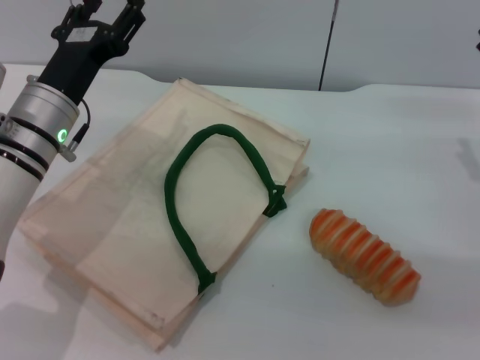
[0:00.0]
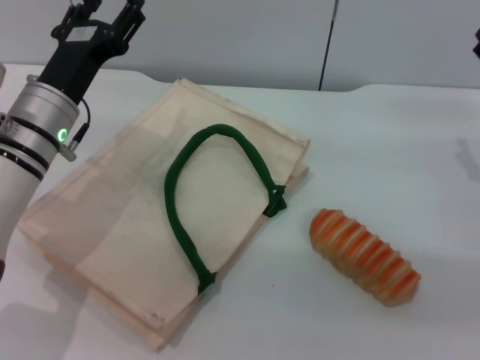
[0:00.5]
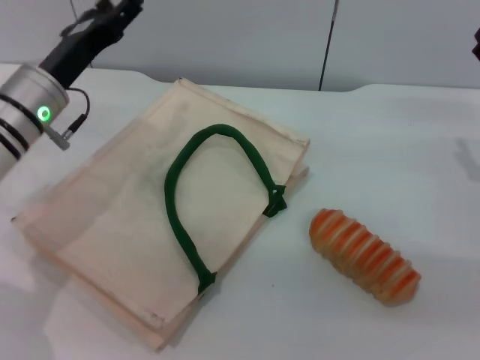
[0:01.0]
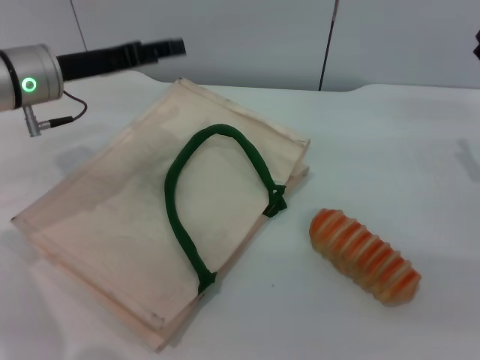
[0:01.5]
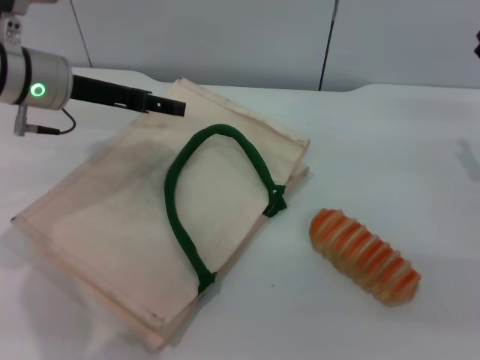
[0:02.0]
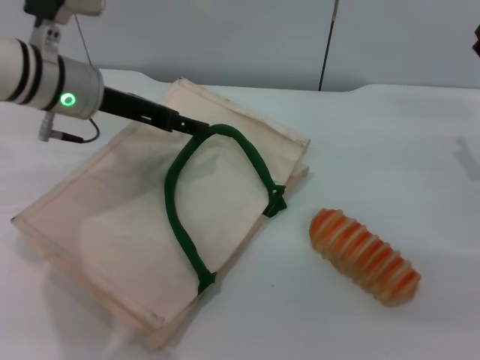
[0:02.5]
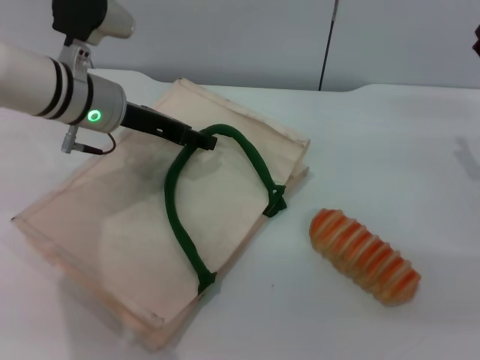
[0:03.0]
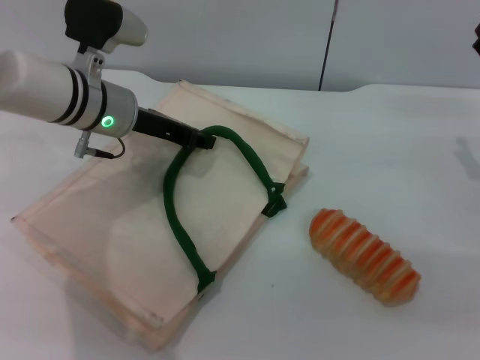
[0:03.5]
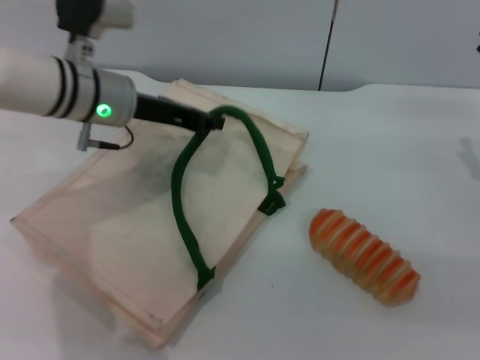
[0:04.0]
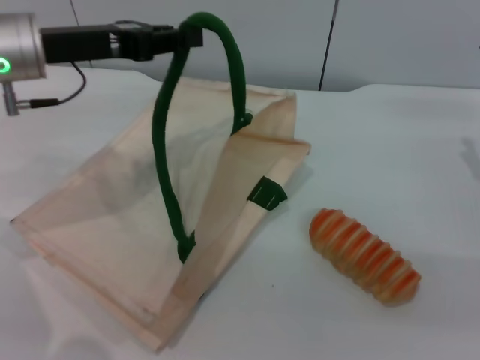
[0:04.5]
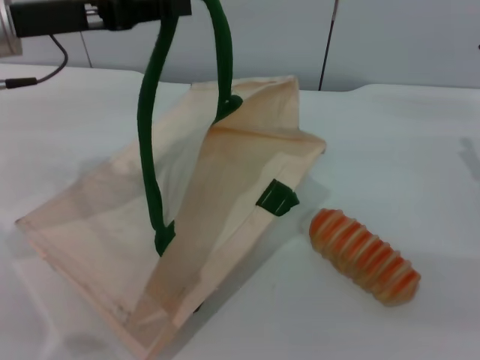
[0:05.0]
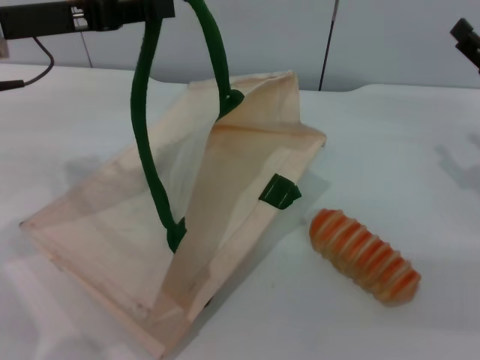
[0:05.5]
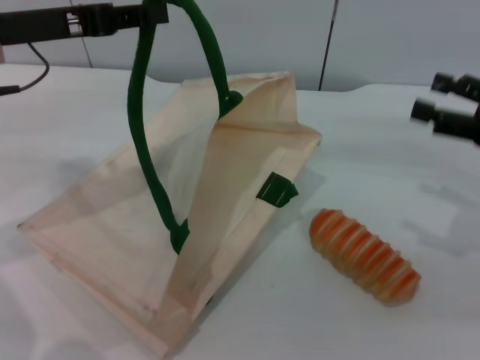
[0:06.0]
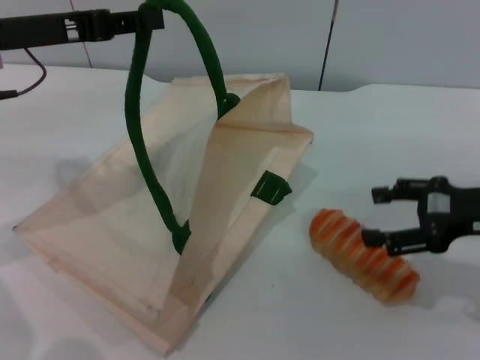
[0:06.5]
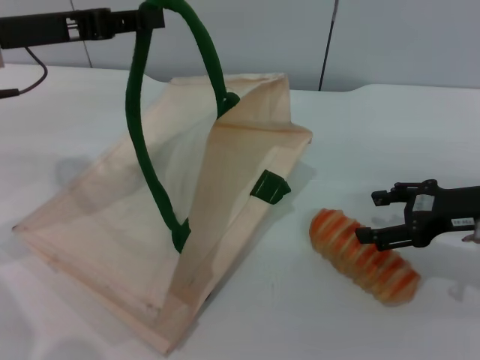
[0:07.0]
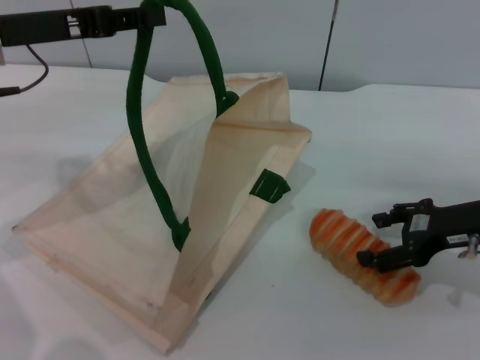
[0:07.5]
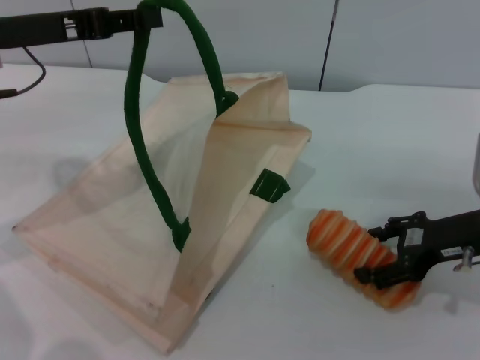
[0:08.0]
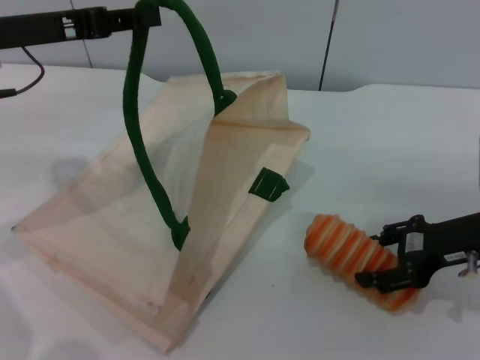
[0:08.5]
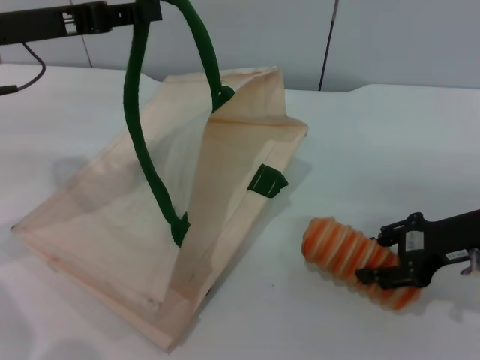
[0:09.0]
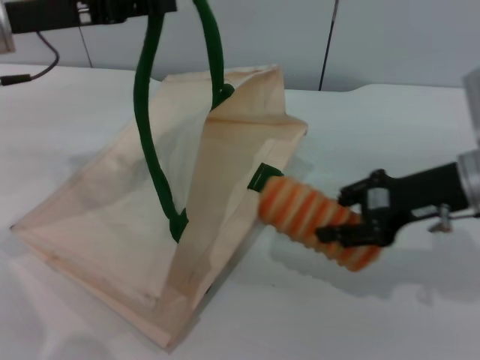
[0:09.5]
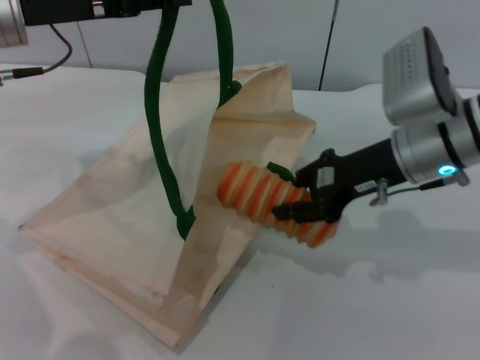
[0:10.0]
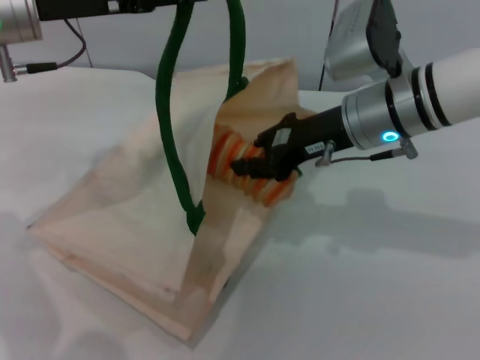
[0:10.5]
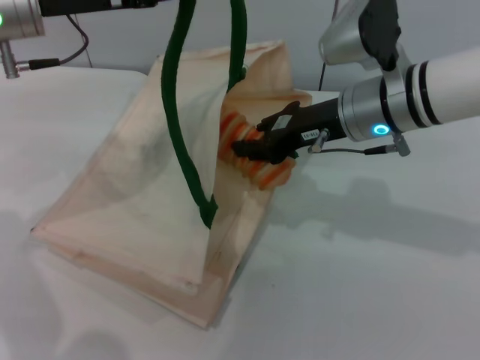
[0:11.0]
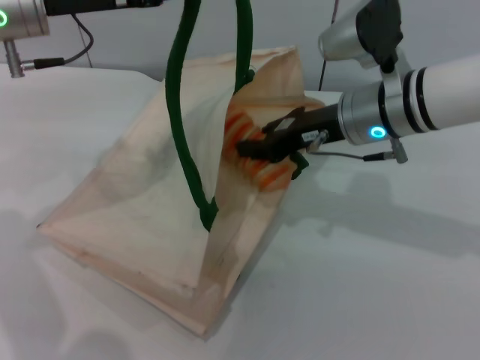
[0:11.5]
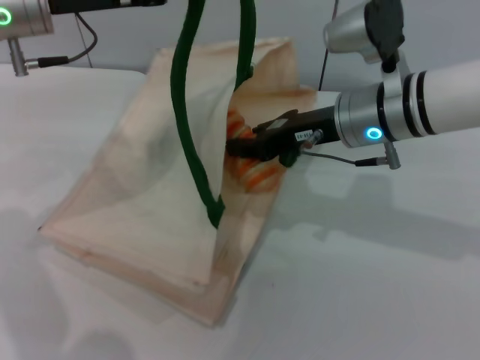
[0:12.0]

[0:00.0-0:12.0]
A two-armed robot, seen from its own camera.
Task of the whole recording: pick up the bread from the table and place it in the white handbag.
Step, 0:00.0 to 0:05.5: Lift the woven bag with the left gripper to open it.
Step, 0:06.0 to 0:09.0: Pick up the bread with the right gripper.
0:00.0 to 0:02.0: The left gripper moves upward and forward, approximately 10 cm.
0:02.0 to 0:04.0: The left gripper shifts roughly 5 cm to the right, and closes its fingers.
0:04.0 to 0:06.0: The left gripper heads to the left and upward, covering approximately 10 cm. Meanwhile the right gripper shifts about 5 cm upward.
0:06.0 to 0:08.0: The right gripper heads downward and to the left, covering some 10 cm.
0:08.0 to 0:10.0: The right gripper shifts roughly 10 cm to the left and upward, and closes.
0:10.0 to 0:12.0: The right gripper moves some 5 cm.

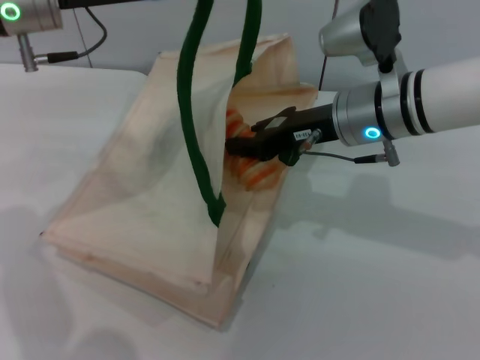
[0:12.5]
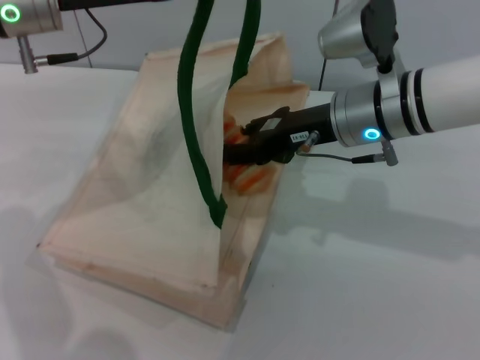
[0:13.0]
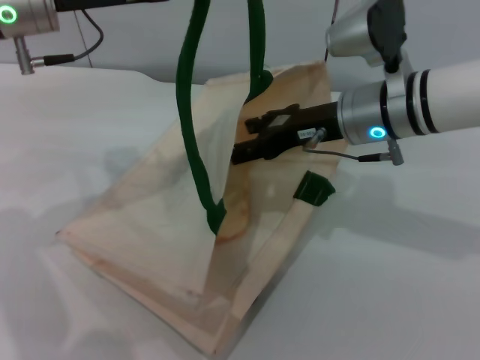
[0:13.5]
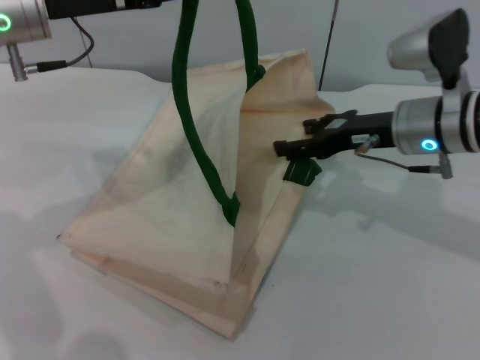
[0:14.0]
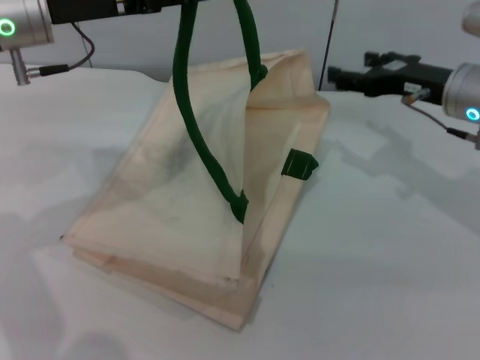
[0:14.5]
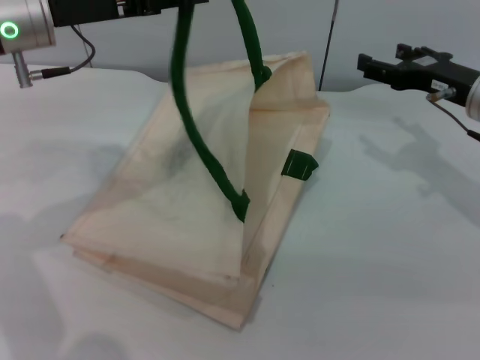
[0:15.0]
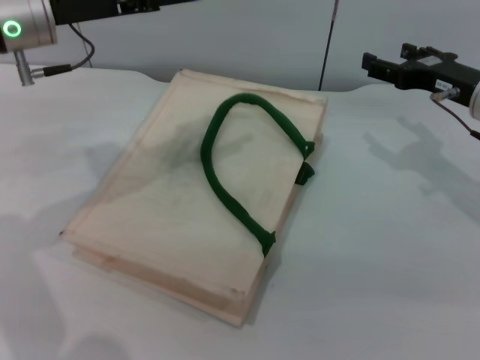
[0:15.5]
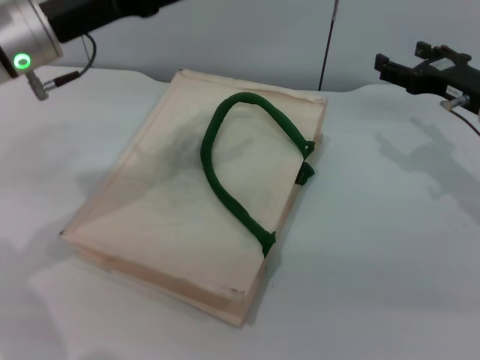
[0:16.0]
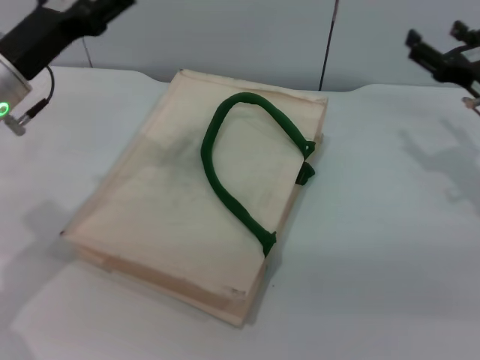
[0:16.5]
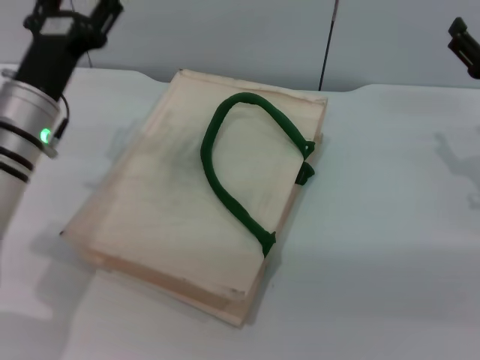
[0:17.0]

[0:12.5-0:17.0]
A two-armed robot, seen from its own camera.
Task of the whole recording: pick up the bread from the table and place it in the white handbag.
Step, 0:14.0 to 0:15.5: Lower the woven bag with the left gripper to close it.
0:12.5 to 0:14.5: The right gripper travels to the right by roughly 10 cm, and opens its fingers.
0:14.5 to 0:17.0: The left gripper shifts approximately 15 cm downward and backward, and opens. The right gripper travels to the right and backward by some 10 cm.
